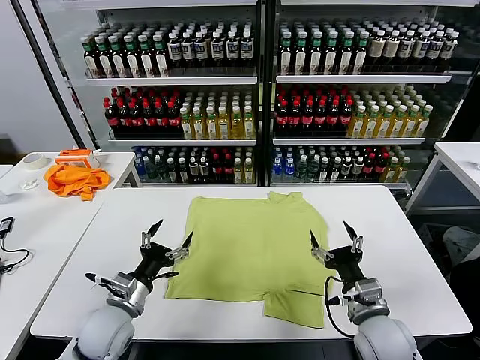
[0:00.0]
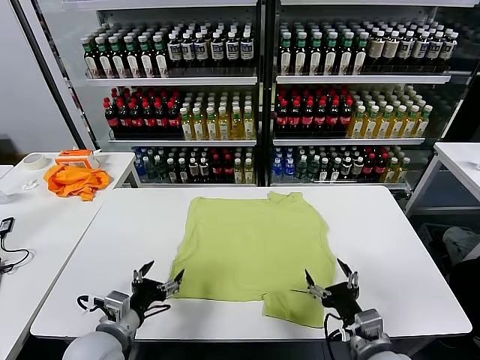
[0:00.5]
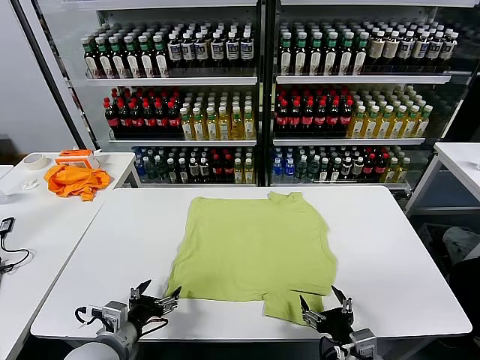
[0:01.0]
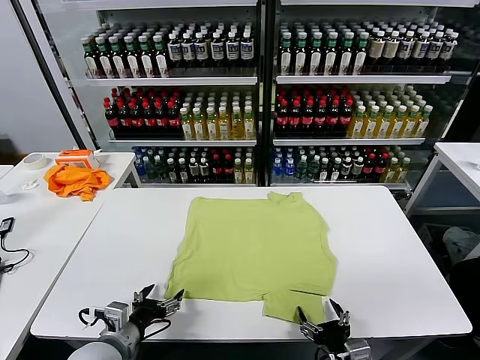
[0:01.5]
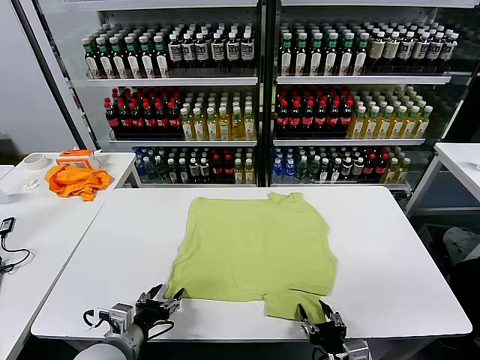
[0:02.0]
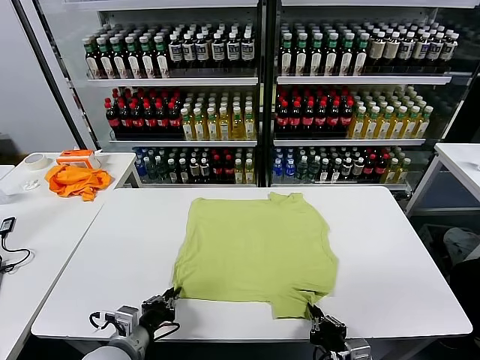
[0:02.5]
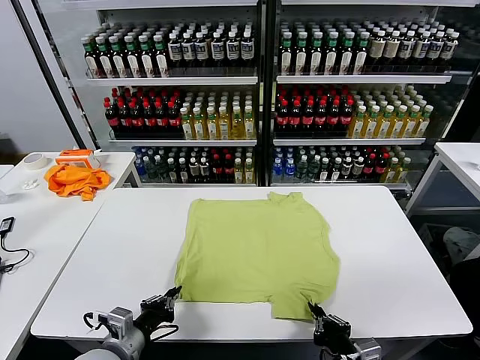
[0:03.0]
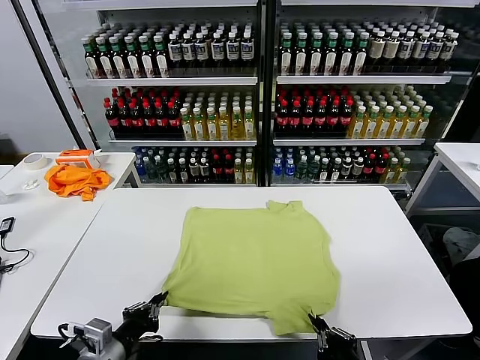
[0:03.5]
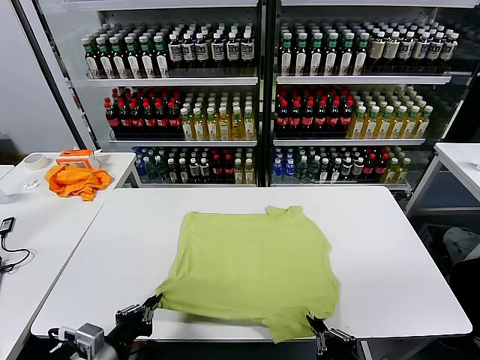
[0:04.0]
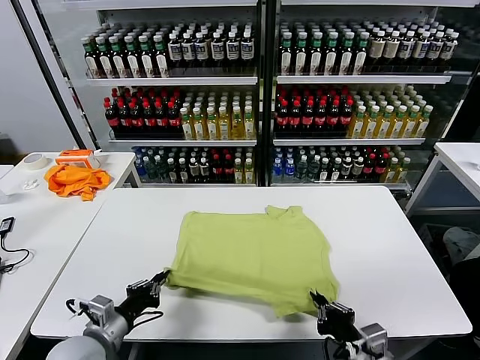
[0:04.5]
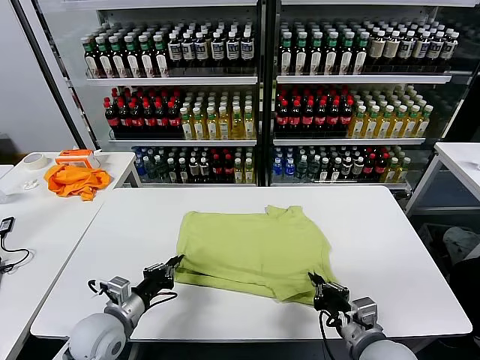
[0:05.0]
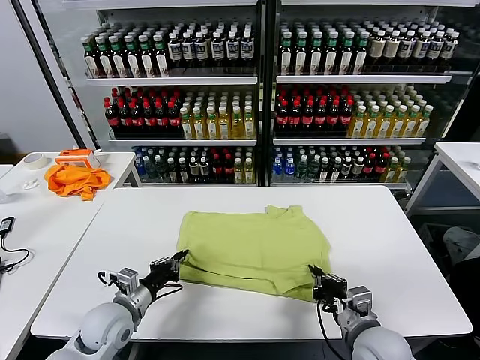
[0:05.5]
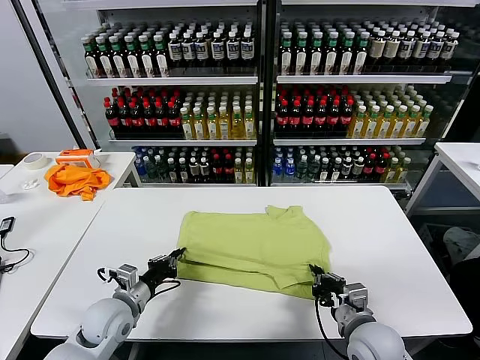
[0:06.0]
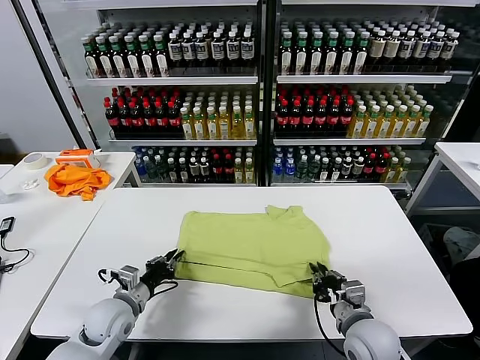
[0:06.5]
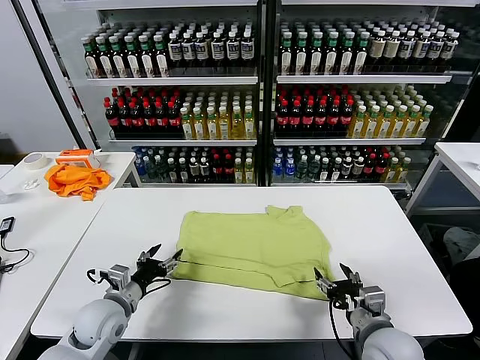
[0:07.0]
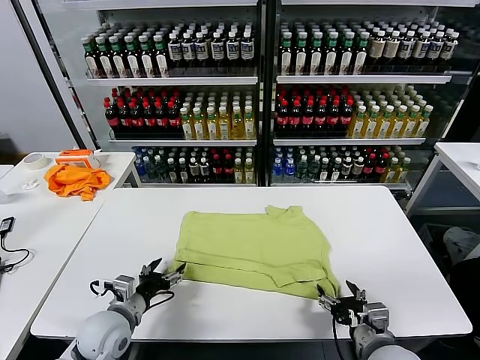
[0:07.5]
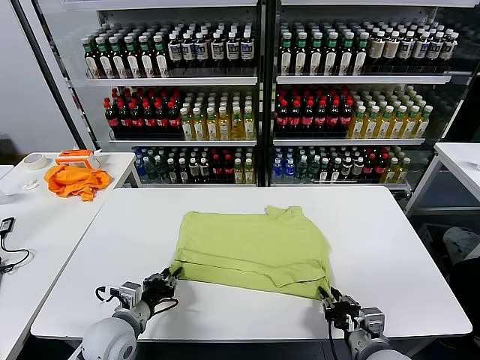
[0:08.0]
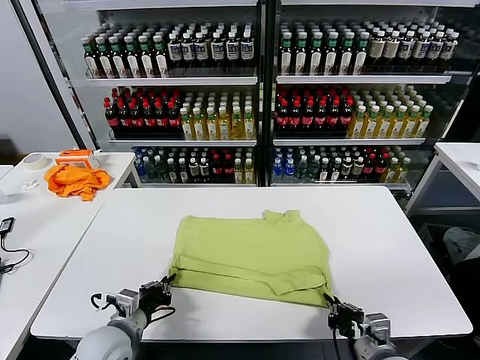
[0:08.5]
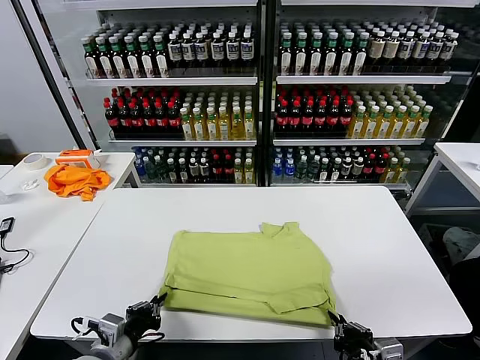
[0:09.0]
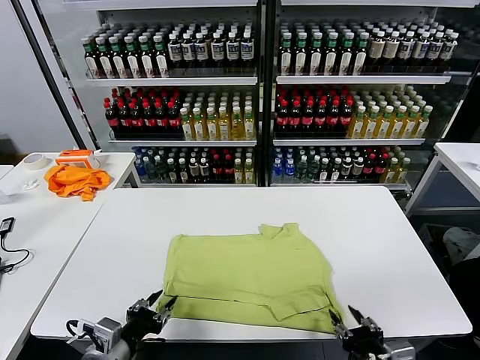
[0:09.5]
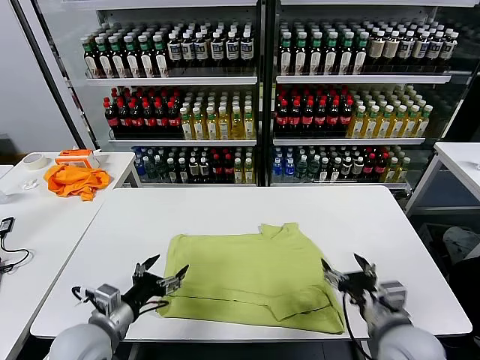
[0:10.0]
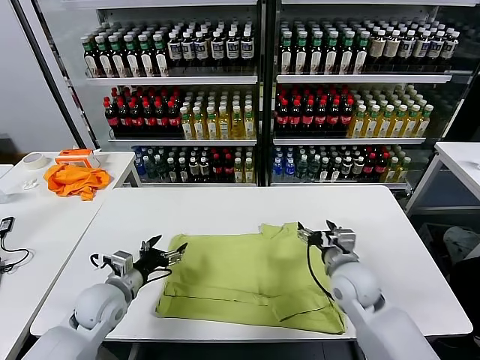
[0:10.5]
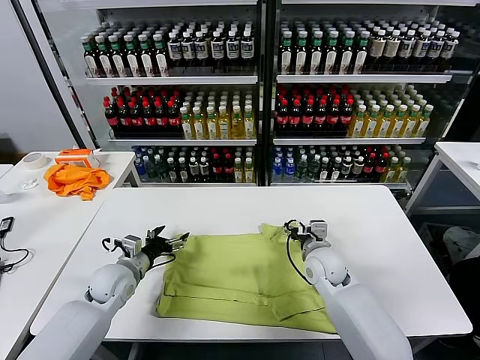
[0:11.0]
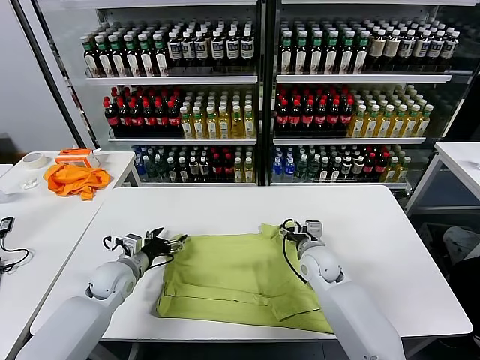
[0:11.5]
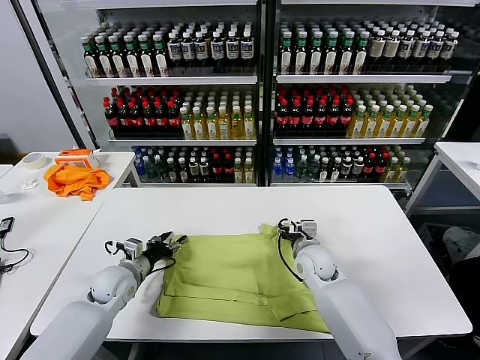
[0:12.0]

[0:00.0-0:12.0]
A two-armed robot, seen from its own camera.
Task of the whole recording: fold and organize the clothes.
Step, 0.0 to 2.5 s: use both grippers simultaneously to clamp the lower edge of the clothing fabric.
Step, 3.0 to 6.5 s: use both grippers to drag the lower edge of the fabric forward and fold it over the upper edge.
Step, 7.0 to 9.0 s: Drag the clothes downward with both gripper.
2.0 to 4.0 s: The right gripper shifts approximately 10 cm upward, and closes, while the left gripper moves backward, approximately 5 cm, and closes.
4.0 to 6.0 s: The left gripper shifts some 15 cm forward and downward. The right gripper moves forward, some 15 cm.
6.0 to 8.0 s: The right gripper changes place by some 5 cm, and opens, then closes again. Meanwhile the left gripper opens, then closes again.
8.0 to 10.0 s: Both grippers travel together upward, roughly 5 cm. The left gripper moves approximately 10 cm backward and comes back, and opens up, while the right gripper opens.
10.0 to 12.0 s: The left gripper travels forward and downward by some 15 cm, and closes, while the right gripper shifts approximately 25 cm forward, to the left and downward, and closes up.

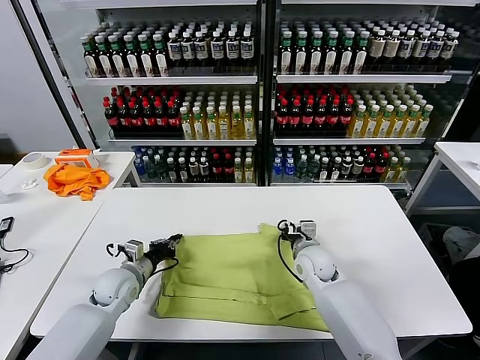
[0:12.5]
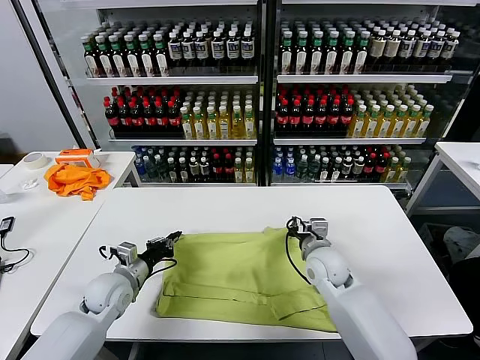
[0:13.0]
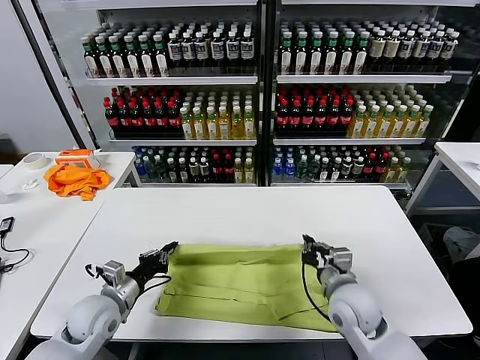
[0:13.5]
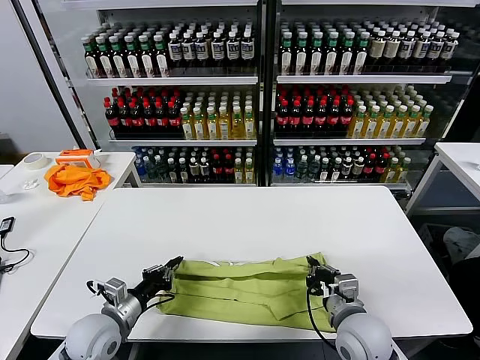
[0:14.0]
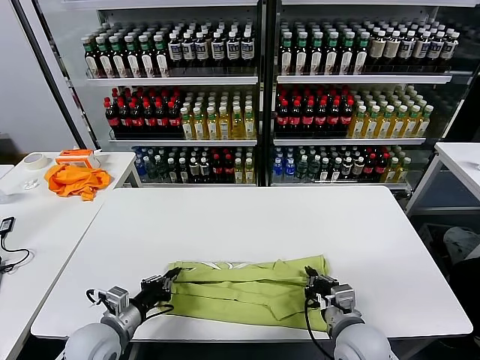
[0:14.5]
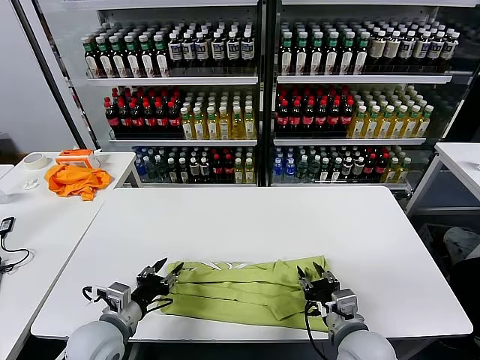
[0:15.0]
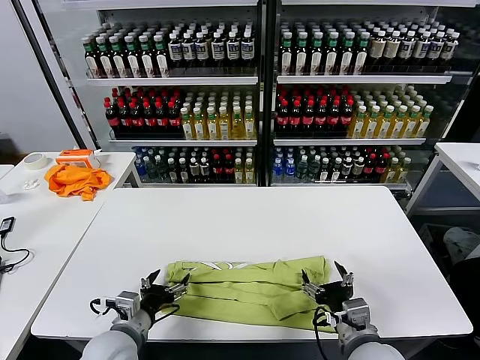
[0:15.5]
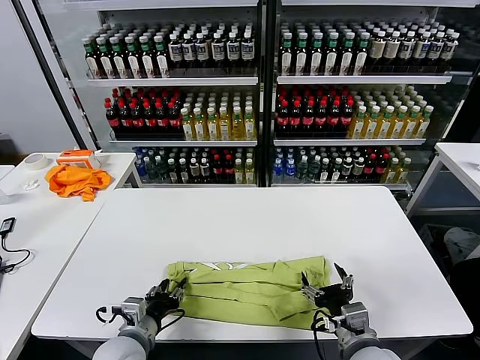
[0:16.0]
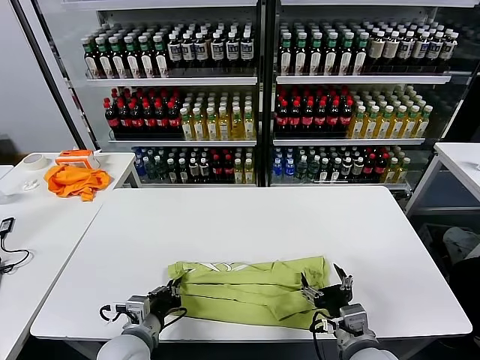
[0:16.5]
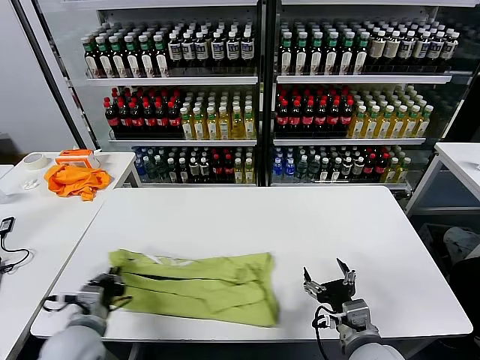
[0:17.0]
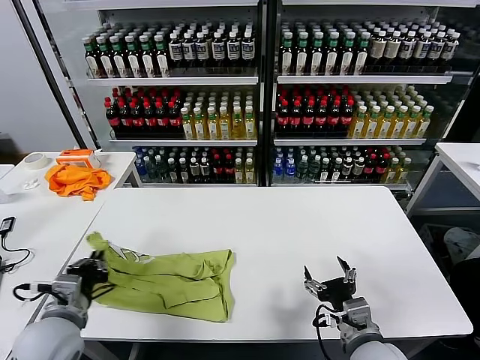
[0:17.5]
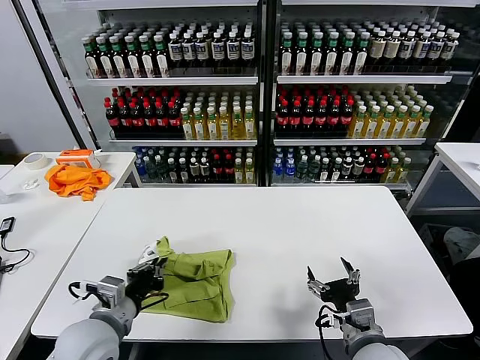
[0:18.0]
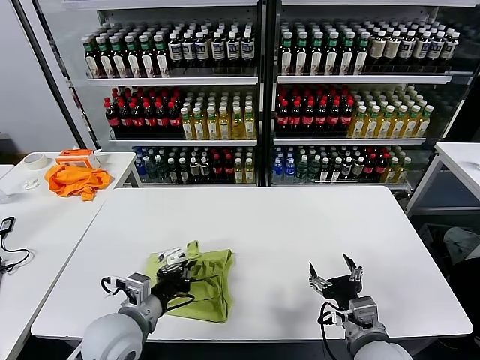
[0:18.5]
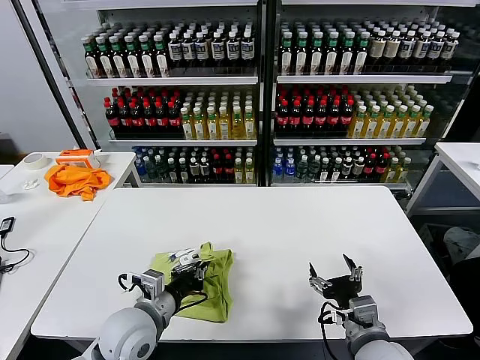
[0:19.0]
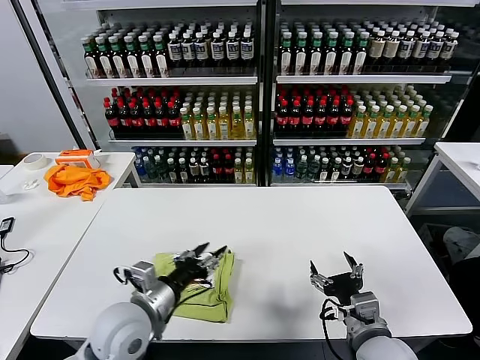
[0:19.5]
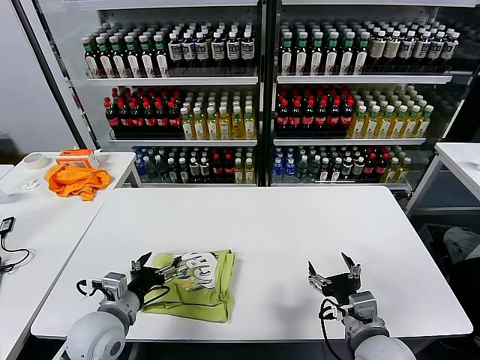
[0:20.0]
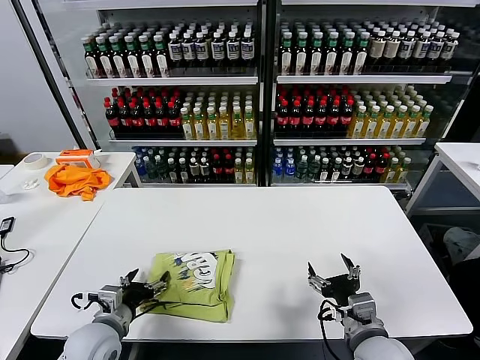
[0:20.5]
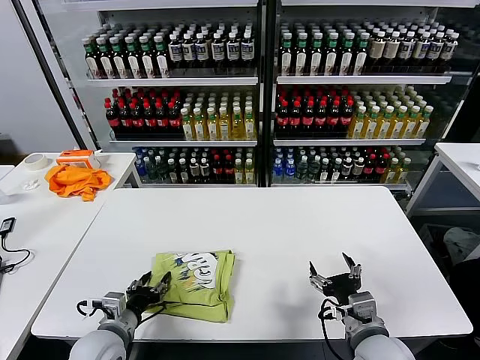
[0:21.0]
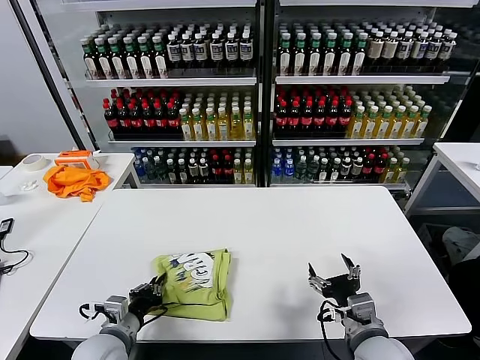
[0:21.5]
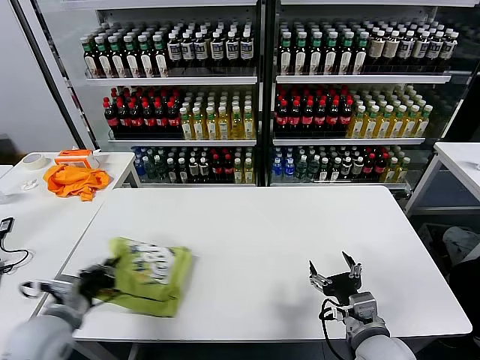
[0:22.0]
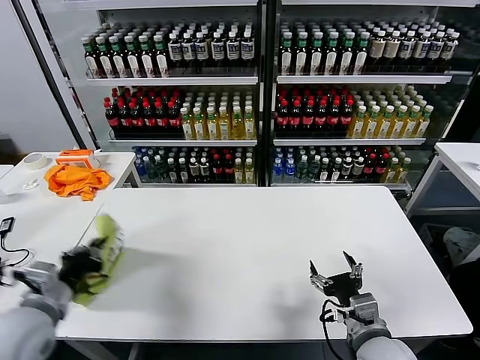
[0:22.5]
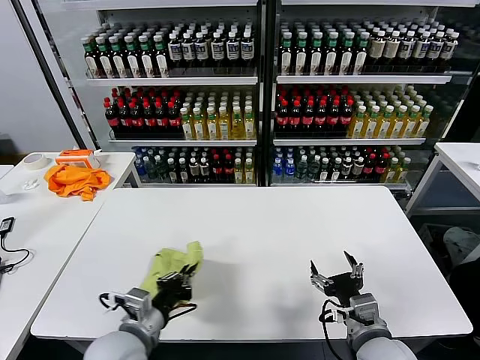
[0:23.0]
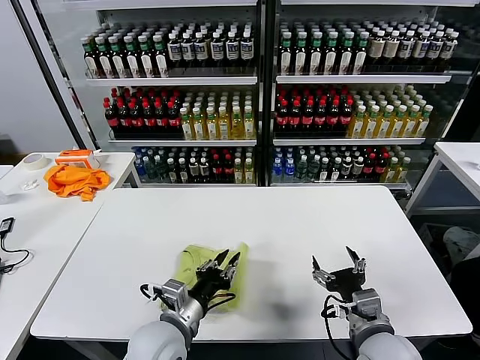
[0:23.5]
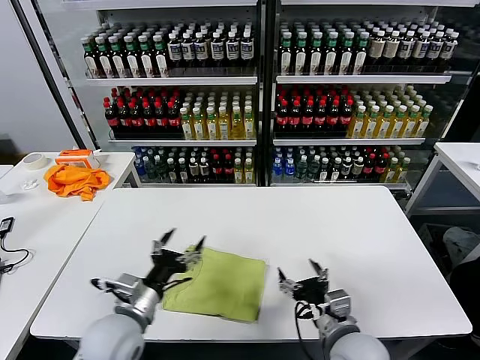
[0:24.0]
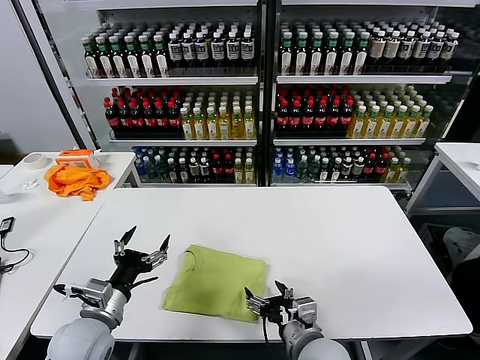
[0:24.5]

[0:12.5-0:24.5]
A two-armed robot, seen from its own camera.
Task of the whole recording: fold and organize the clothes.
Step, 13.0 to 14.5 s: use both grippers to drag the upper edge of the fabric backward and fold it over the lower edge.
Step, 15.0 to 16.0 s: use the left gripper to clamp the left edge of the fabric.
Step, 16.5 to 19.0 s: use the left gripper to drag the left edge of the fabric to the left and folds it over the right edge.
Step, 19.5 to 23.5 s: Flip the folded clothes over with left gripper.
12.5 to 14.5 s: Both grippers move backward, some 15 cm.
14.5 to 16.5 s: The left gripper heads to the right, covering some 5 cm, and opens, then closes again, while the right gripper changes place by approximately 5 cm, and opens up.
16.5 to 18.5 s: The left gripper travels upward by approximately 5 cm, and reaches about 10 cm to the left, then returns.
18.5 to 20.5 s: The left gripper shifts some 10 cm to the left and downward, and opens its fingers.
20.5 to 22.5 s: The left gripper shifts approximately 15 cm upward and to the left, and closes its fingers.
22.5 to 24.5 s: The left gripper goes approximately 10 cm to the right and downward, and opens; the right gripper moves to the left, roughly 10 cm.

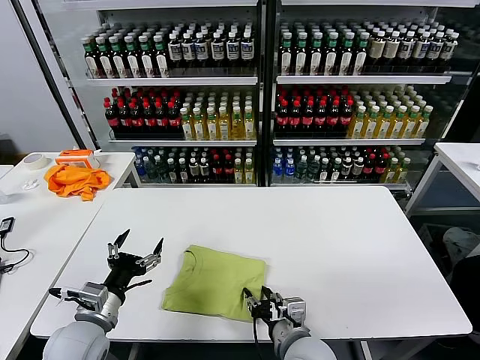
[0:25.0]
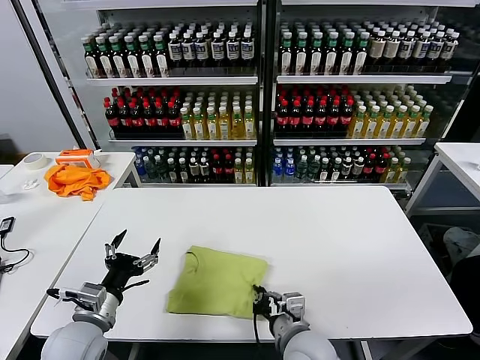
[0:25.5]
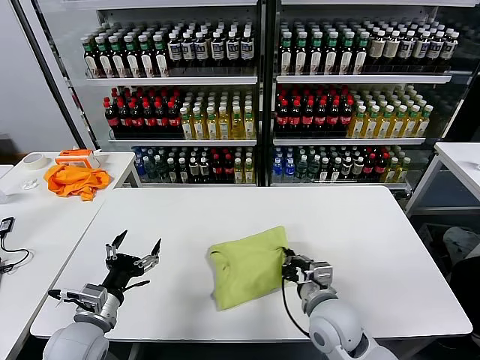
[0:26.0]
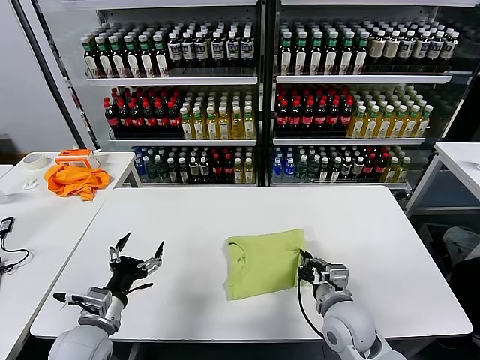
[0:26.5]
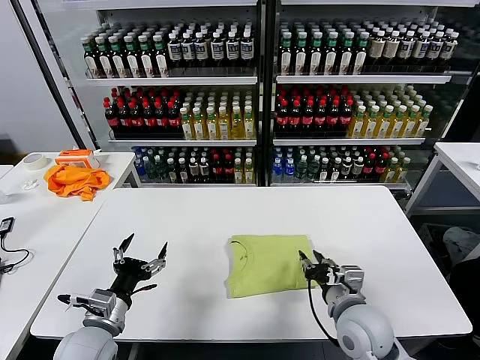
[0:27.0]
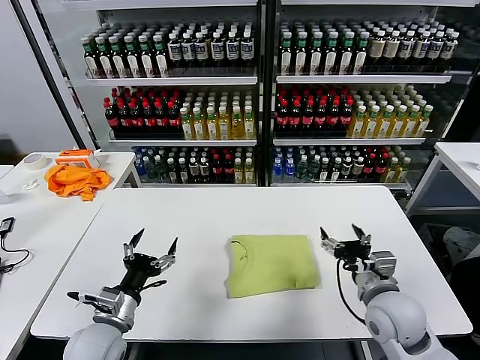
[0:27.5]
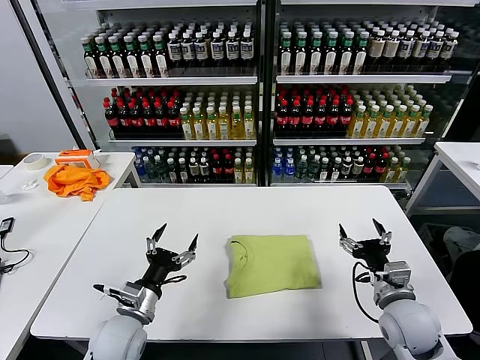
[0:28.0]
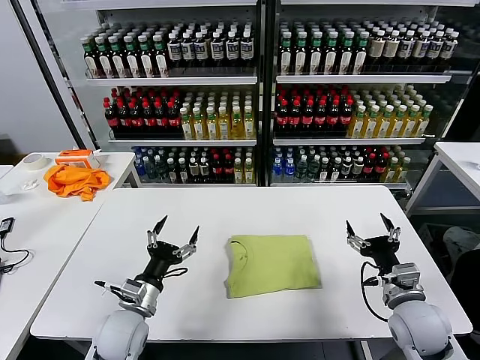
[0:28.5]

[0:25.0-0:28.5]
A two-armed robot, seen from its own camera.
Task of the whole recording: fold and organize the clothes.
25.0 to 27.0 s: The right gripper is displaced to the right by approximately 10 cm, and closes, then reopens.
27.0 to 28.5 s: The left gripper moves roughly 5 cm; the right gripper goes about 10 cm to the right, and opens up.
